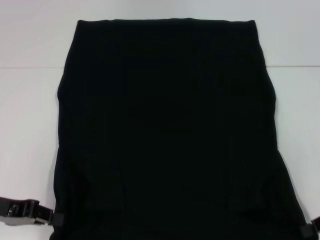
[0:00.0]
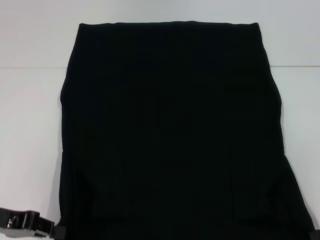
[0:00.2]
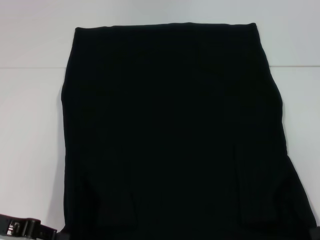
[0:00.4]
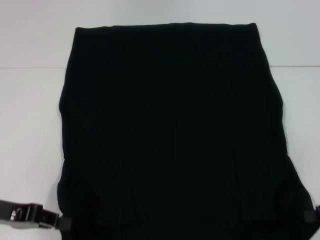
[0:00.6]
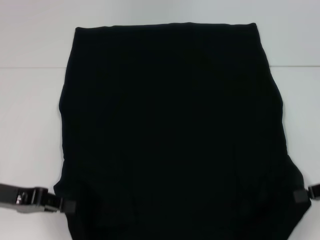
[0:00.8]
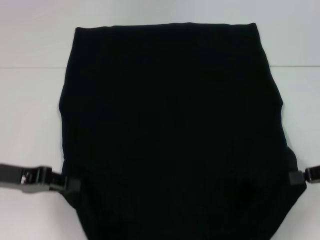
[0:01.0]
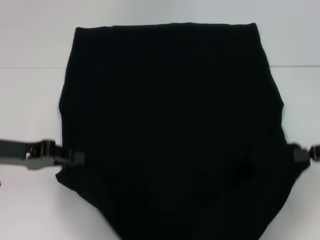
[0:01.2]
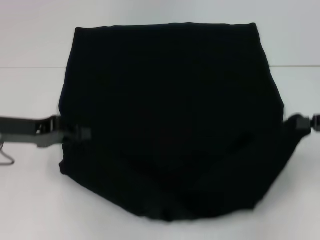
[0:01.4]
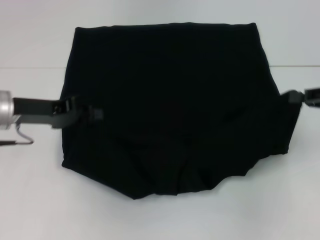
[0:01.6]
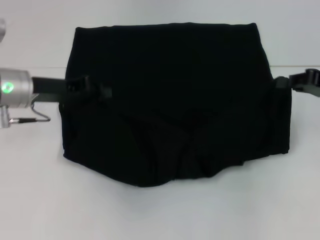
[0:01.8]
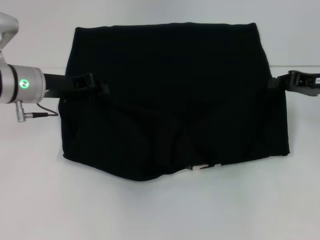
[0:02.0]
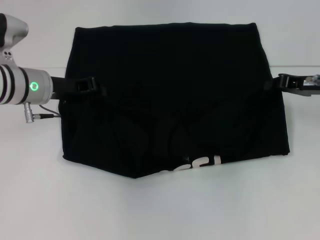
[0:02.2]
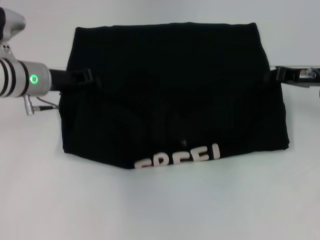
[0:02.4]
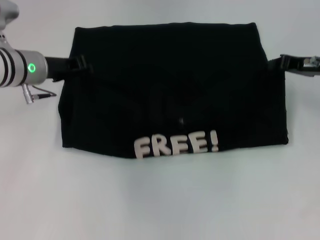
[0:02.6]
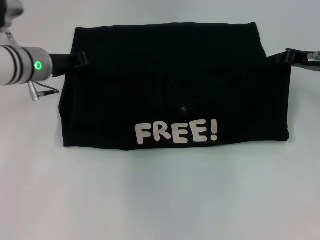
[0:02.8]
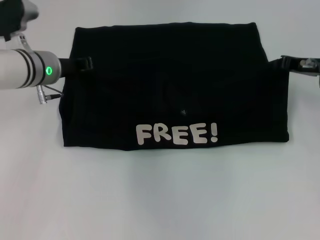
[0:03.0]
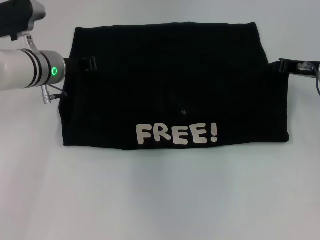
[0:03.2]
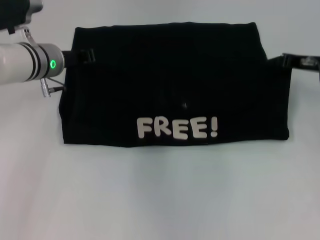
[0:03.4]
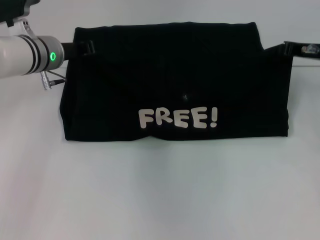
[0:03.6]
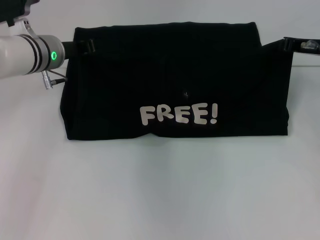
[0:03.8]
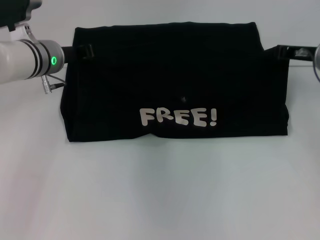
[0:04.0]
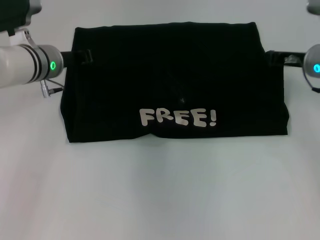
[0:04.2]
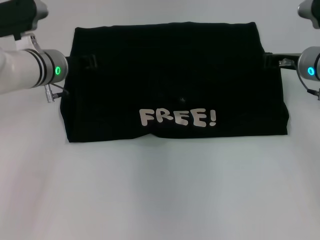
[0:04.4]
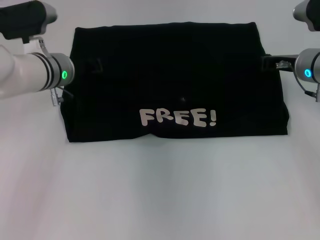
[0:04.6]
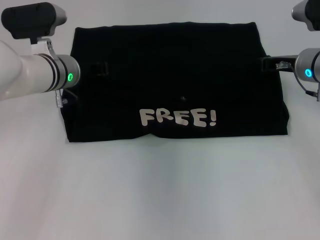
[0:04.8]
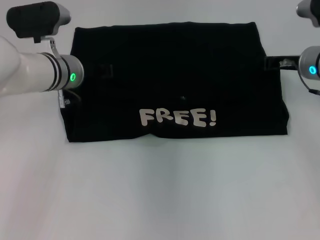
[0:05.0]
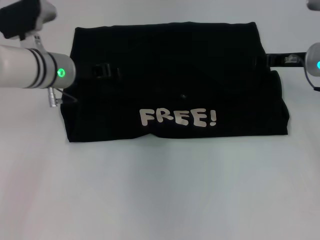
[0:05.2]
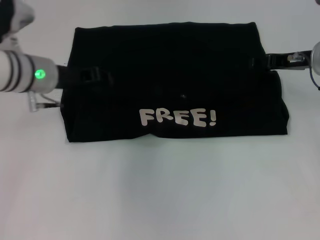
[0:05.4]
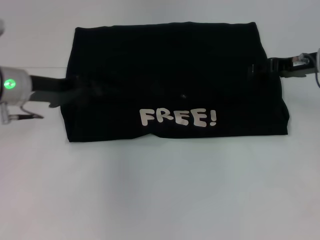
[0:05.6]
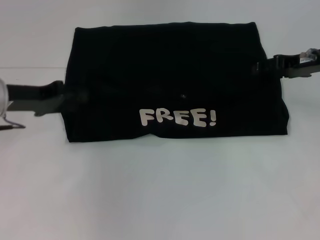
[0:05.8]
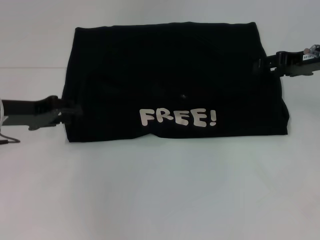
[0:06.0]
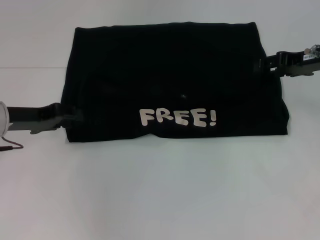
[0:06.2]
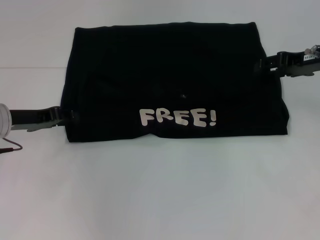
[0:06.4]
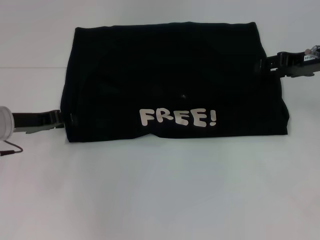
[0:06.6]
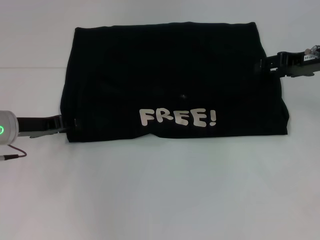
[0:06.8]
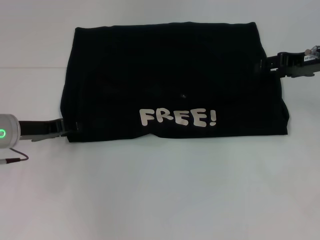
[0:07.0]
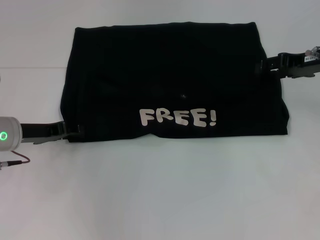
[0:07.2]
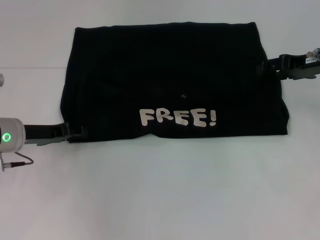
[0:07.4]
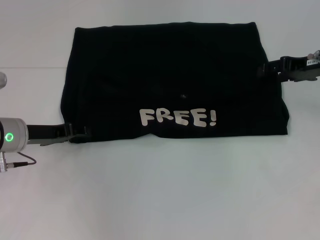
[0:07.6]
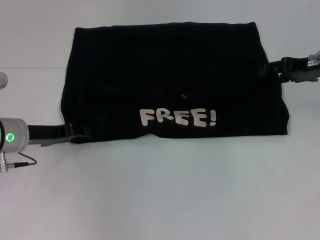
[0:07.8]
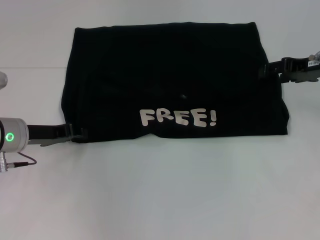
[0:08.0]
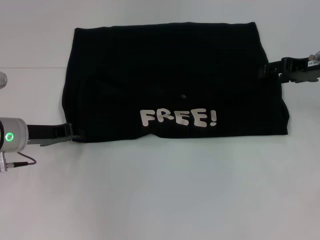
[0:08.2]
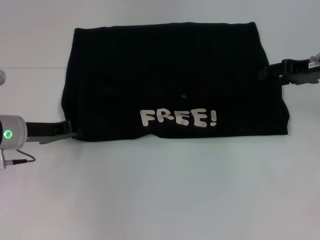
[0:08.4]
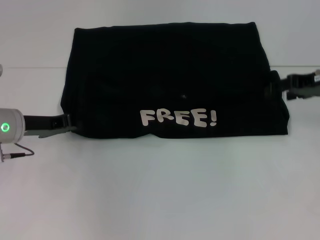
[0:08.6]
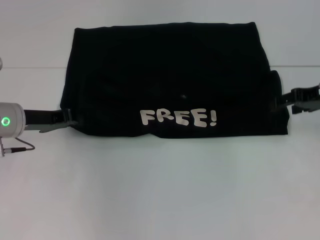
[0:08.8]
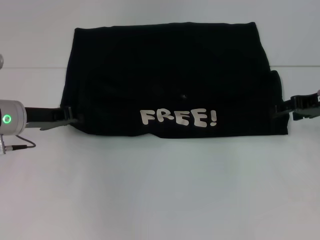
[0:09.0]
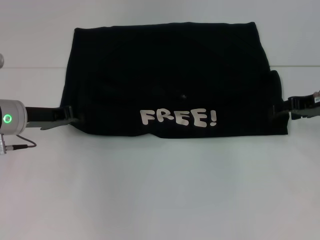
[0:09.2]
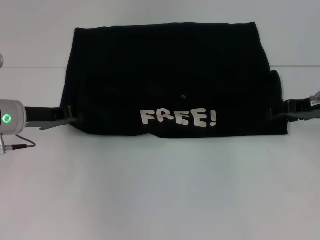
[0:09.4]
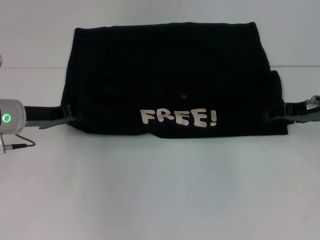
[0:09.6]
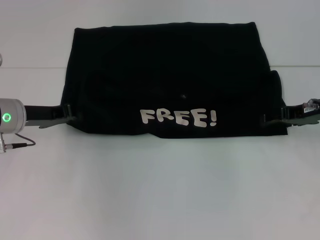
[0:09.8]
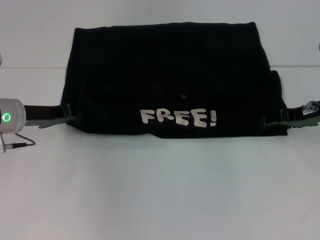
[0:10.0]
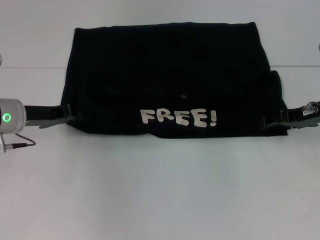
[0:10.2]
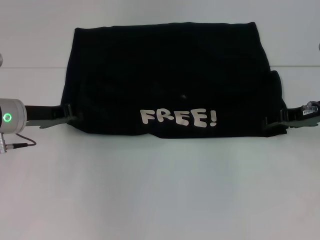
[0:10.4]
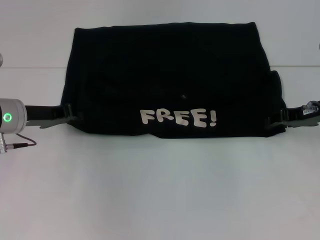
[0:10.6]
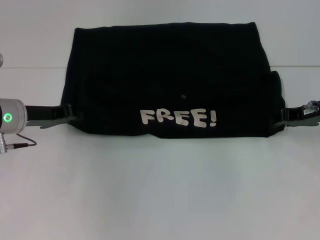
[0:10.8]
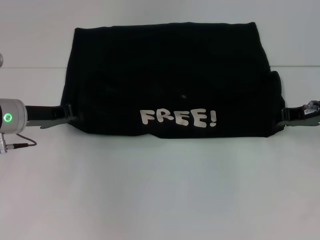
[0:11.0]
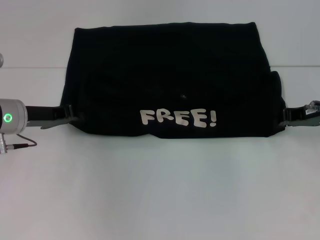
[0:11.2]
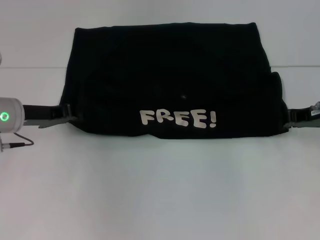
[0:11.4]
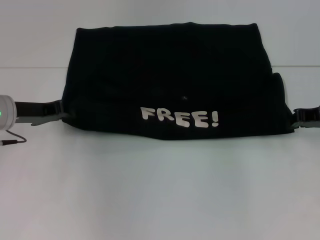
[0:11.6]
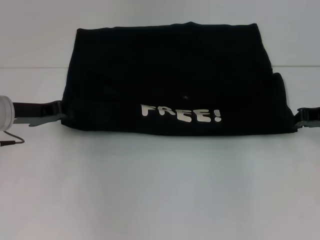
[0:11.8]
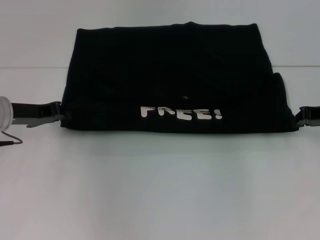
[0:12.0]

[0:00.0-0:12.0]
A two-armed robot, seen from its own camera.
Step, 0:00.0 to 0:05.0: Fold the clothes with your left hand.
Step, 0:00.0 to 0:05.0: Fold the clothes with your right hand.
0:00.0 to 0:01.6: The left gripper moves forward, approximately 10 cm. The right gripper is displaced upward and forward by some 10 cm.
0:01.6 to 0:03.0: The right gripper heads forward and to the left, covering roughly 10 cm. The left gripper shifts roughly 10 cm forward and to the right.
0:03.0 to 0:04.4: There are only small adjustments of the grippers.
0:04.4 to 0:06.0: The left gripper heads to the left and backward, covering about 15 cm, and opens, while the right gripper moves upward, about 5 cm, and opens up.
0:06.0 to 0:07.6: The left gripper heads downward, covering about 5 cm.
0:07.6 to 0:09.0: The left gripper closes.
0:09.0 to 0:10.4: The grippers make only small movements.
0:10.4 to 0:12.0: The right gripper closes its fingers.

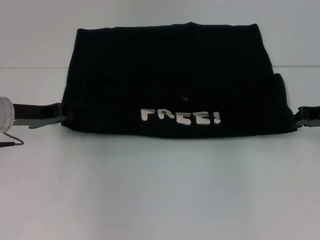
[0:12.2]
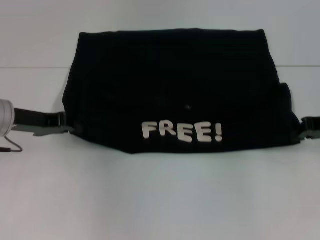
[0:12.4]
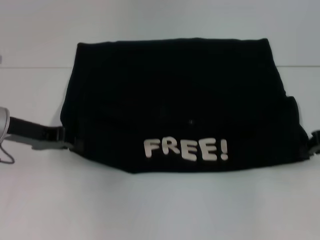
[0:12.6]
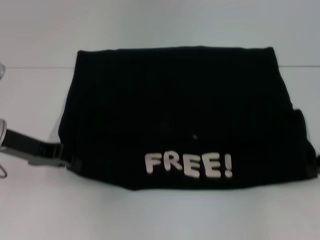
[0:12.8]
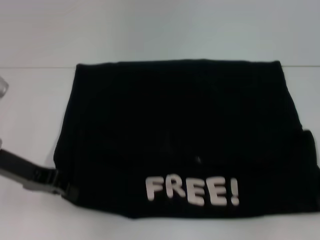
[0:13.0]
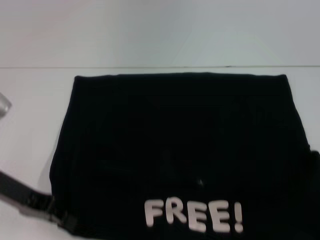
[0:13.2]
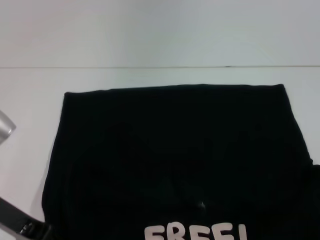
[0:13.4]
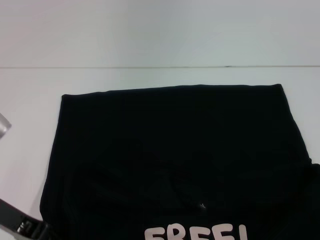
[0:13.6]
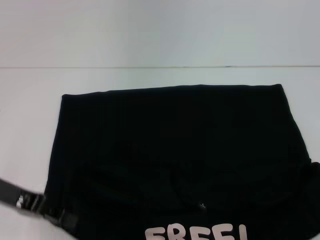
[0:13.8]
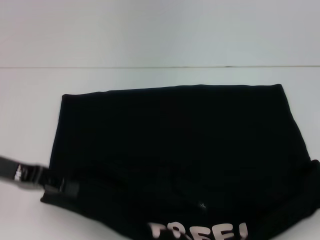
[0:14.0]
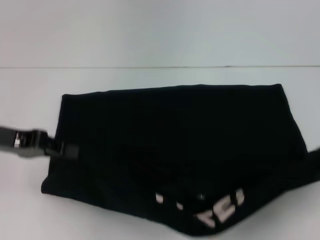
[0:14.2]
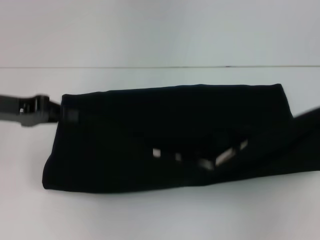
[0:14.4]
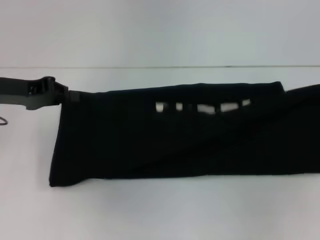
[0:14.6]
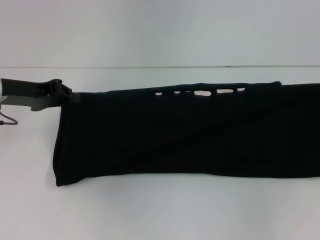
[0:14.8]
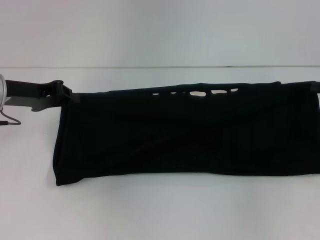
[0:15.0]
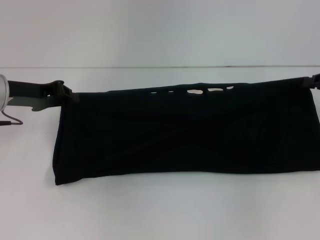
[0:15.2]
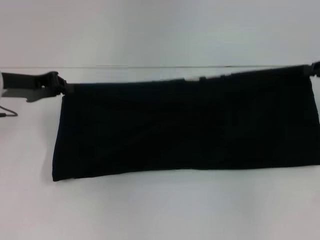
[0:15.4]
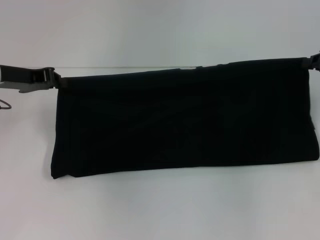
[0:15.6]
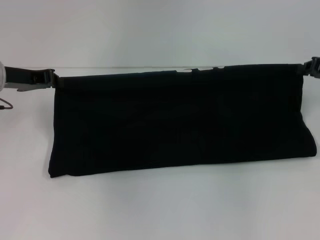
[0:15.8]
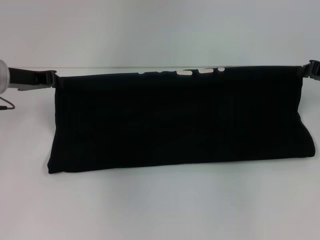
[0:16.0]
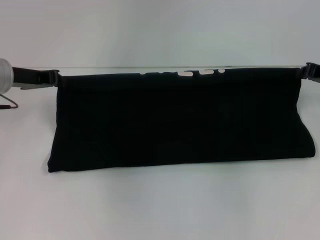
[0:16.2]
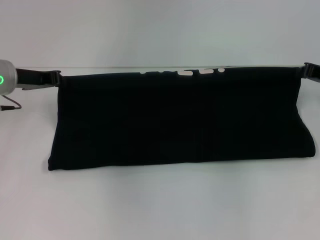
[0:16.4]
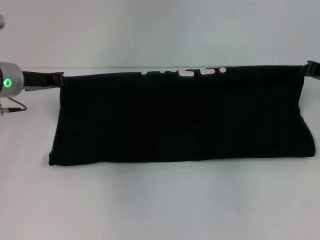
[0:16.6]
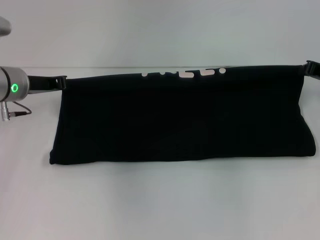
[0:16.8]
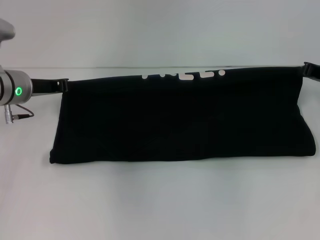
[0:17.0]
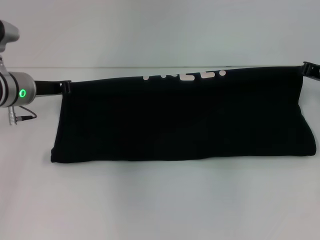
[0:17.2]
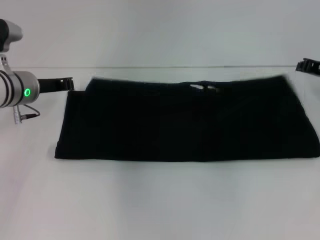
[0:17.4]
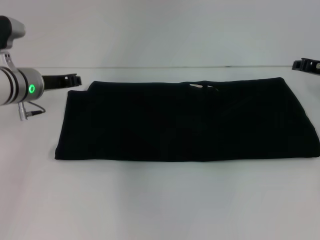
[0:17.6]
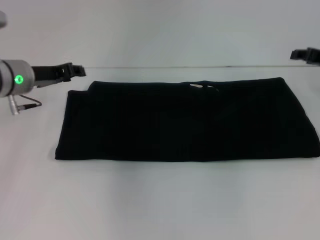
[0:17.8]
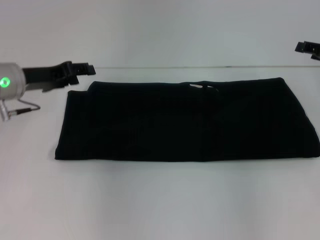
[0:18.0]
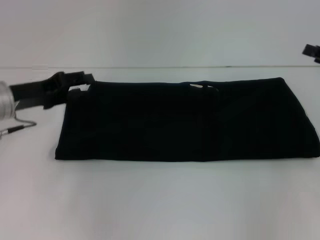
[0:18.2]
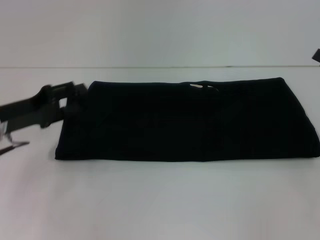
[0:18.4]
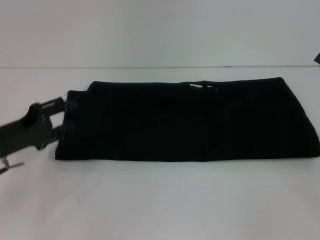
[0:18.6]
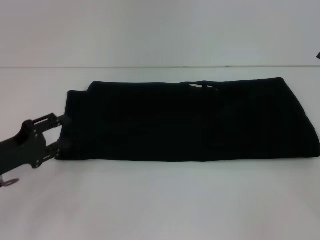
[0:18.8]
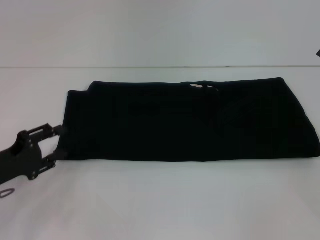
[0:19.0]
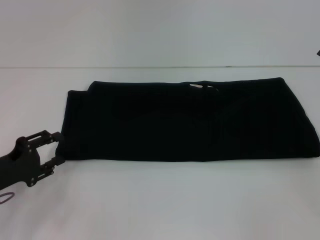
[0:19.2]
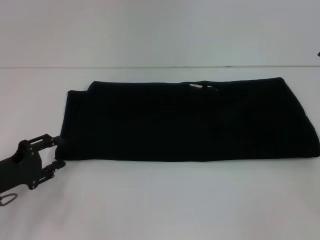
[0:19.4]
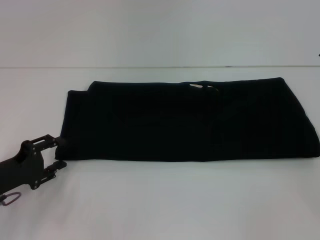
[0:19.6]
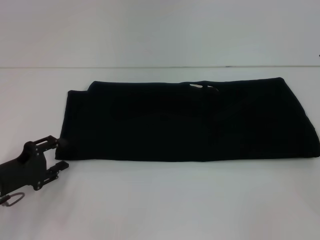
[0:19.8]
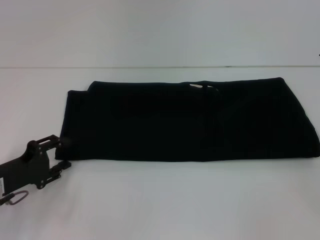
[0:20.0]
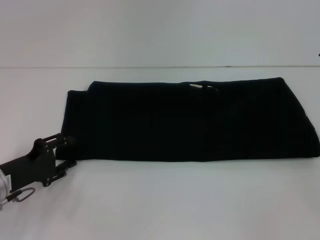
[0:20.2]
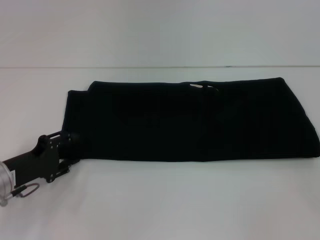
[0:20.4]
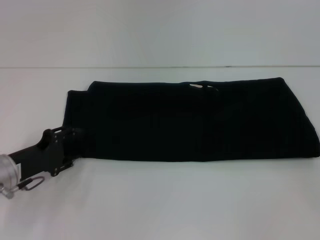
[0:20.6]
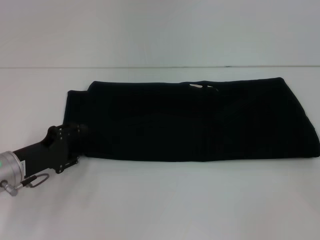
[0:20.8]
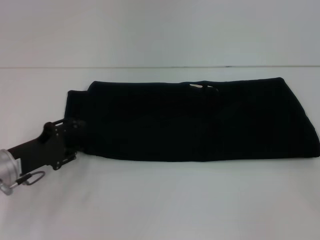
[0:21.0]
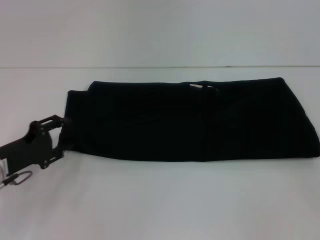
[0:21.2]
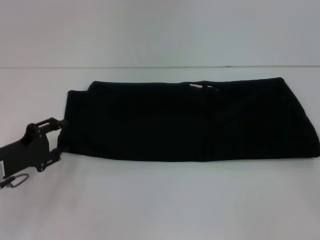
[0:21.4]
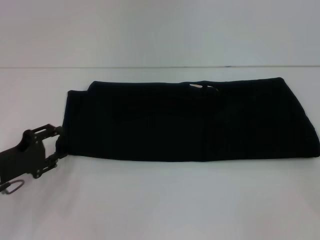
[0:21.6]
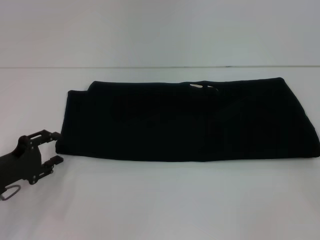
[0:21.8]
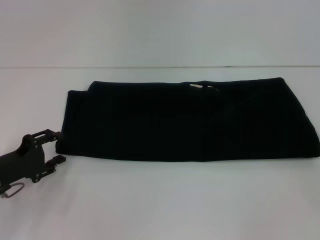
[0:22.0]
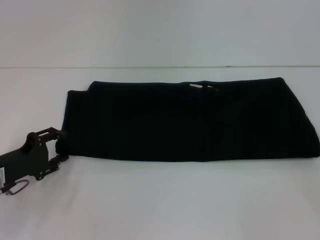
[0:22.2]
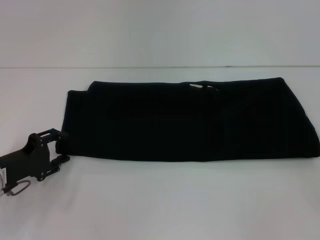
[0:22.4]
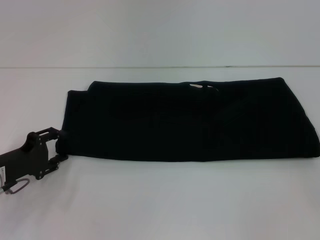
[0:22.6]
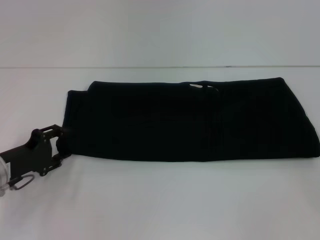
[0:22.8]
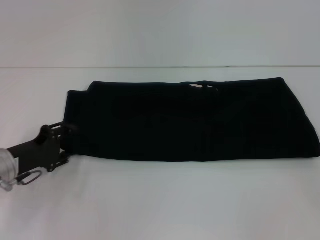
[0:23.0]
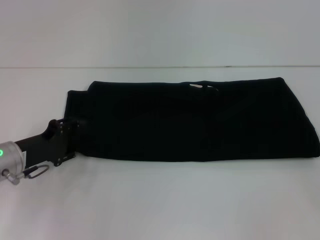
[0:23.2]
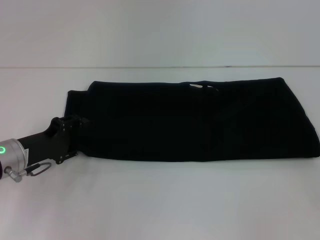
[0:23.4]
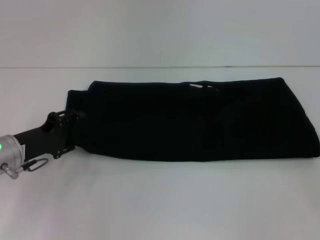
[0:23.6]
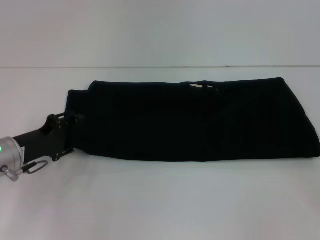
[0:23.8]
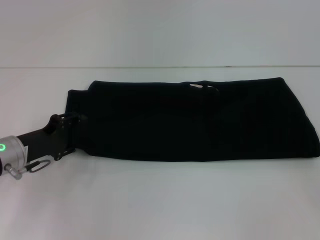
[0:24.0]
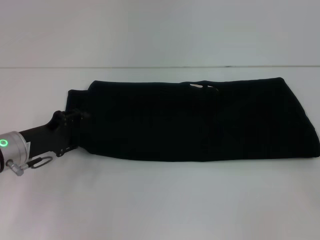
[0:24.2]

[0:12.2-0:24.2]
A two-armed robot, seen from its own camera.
Step, 0:13.4 to 0:18.0: Fold the clothes with your right hand.
0:12.2 to 0:13.8: The right gripper heads backward and to the right, covering some 15 cm; the left gripper goes roughly 10 cm backward.
0:13.8 to 0:15.2: Both grippers move forward, roughly 10 cm.
0:16.6 to 0:18.2: The two grippers go approximately 5 cm backward. The right gripper opens; the left gripper opens up.
0:18.2 to 0:19.8: The left gripper heads backward and downward, covering about 15 cm.
0:19.8 to 0:22.6: The grippers move only a little.
0:22.6 to 0:24.2: The left gripper ends up some 5 cm from where it was.
